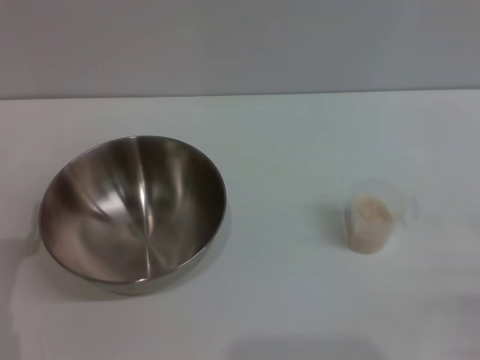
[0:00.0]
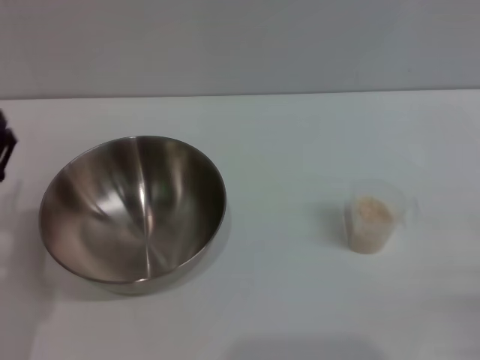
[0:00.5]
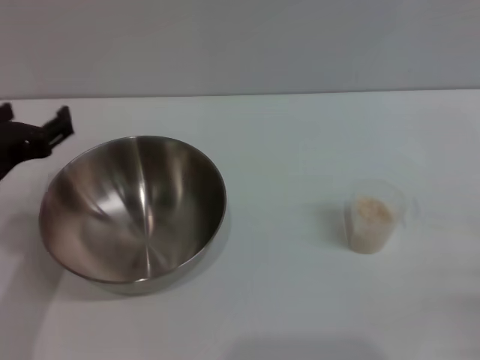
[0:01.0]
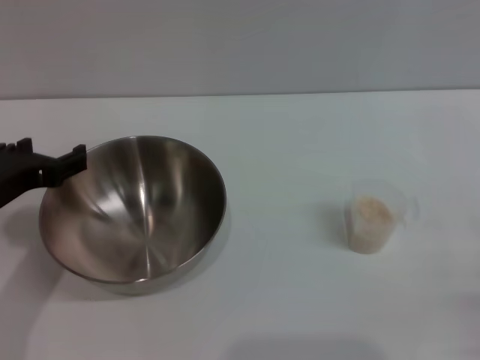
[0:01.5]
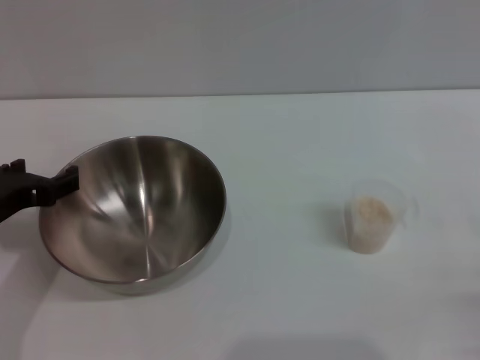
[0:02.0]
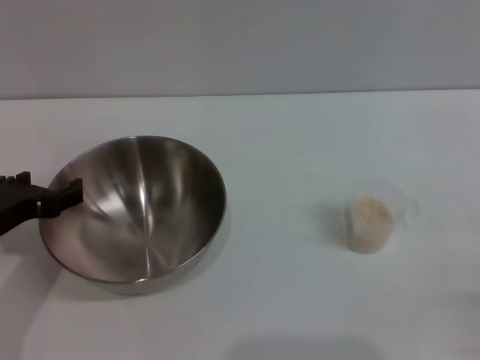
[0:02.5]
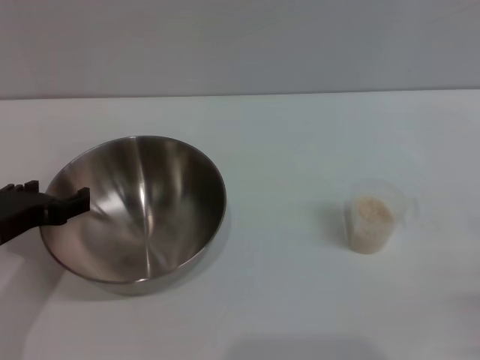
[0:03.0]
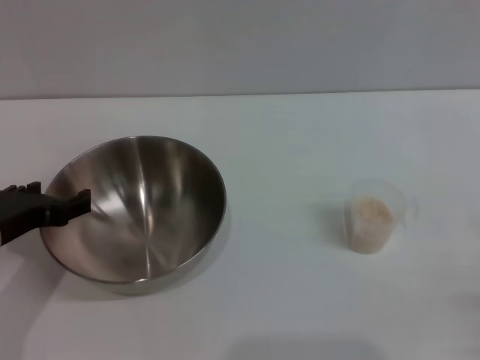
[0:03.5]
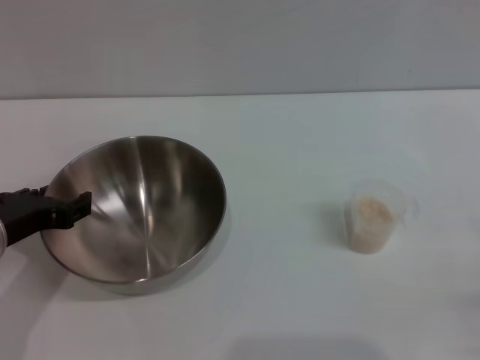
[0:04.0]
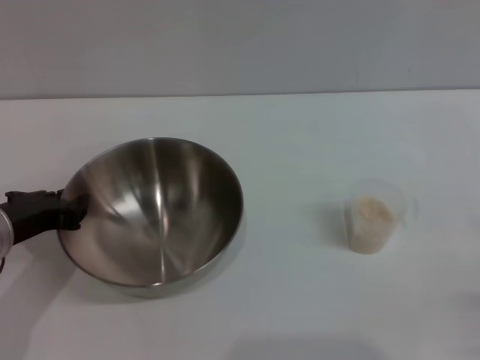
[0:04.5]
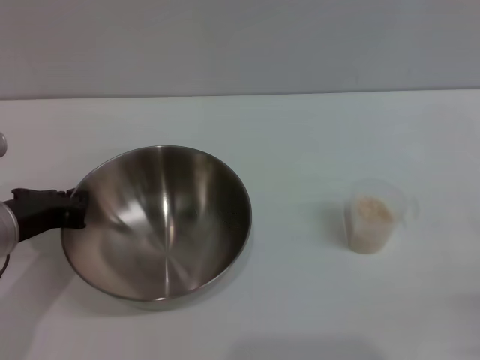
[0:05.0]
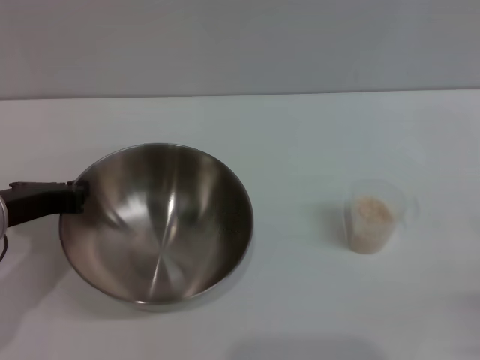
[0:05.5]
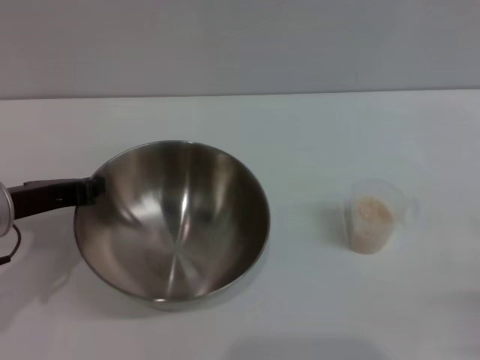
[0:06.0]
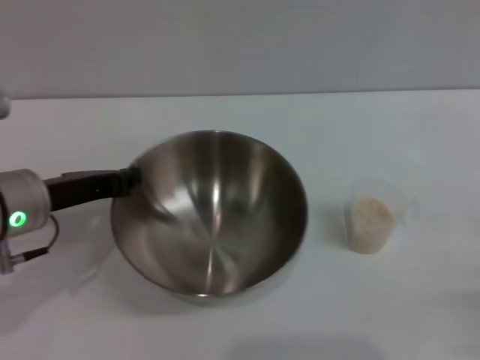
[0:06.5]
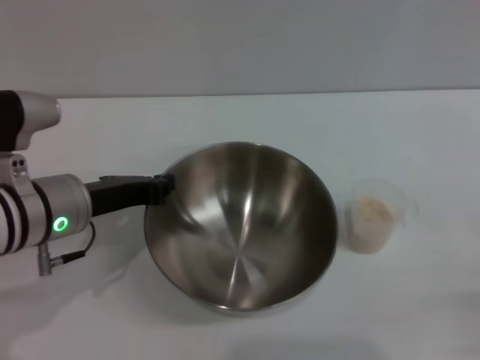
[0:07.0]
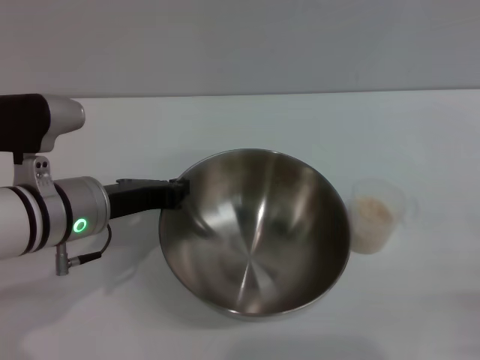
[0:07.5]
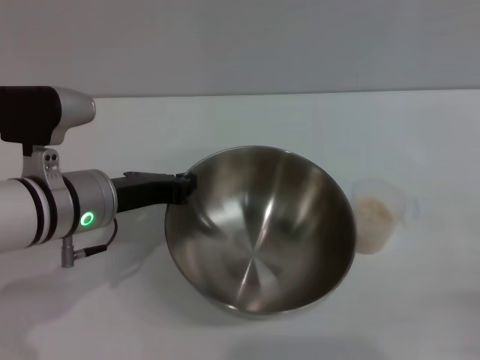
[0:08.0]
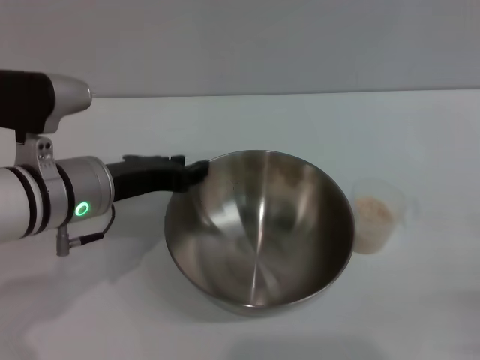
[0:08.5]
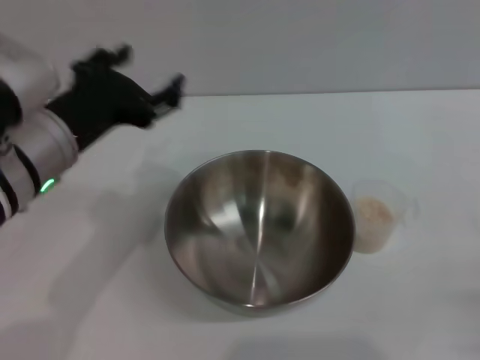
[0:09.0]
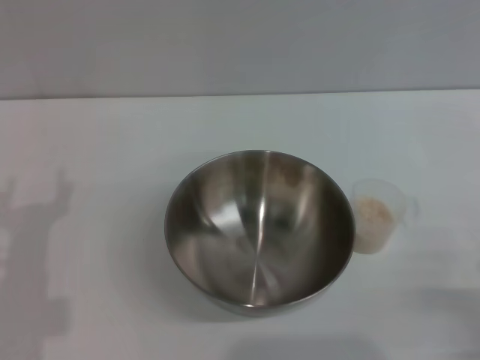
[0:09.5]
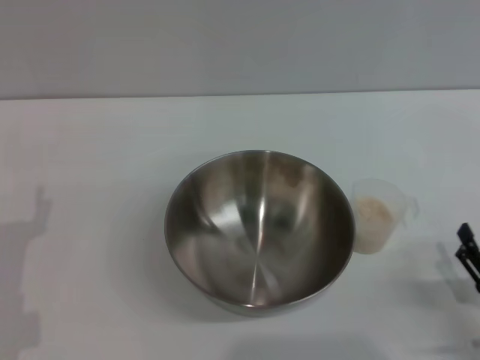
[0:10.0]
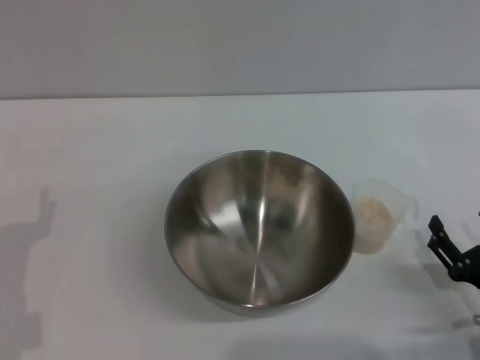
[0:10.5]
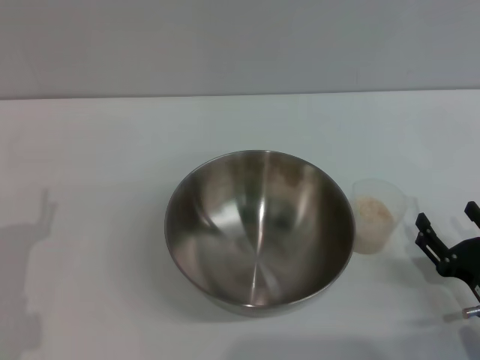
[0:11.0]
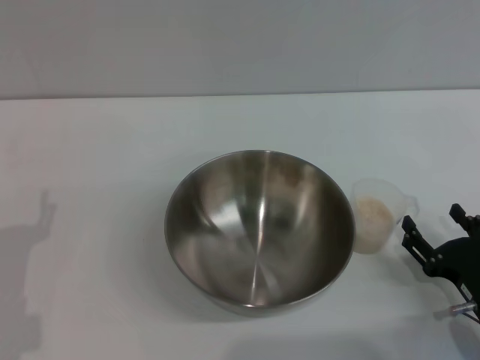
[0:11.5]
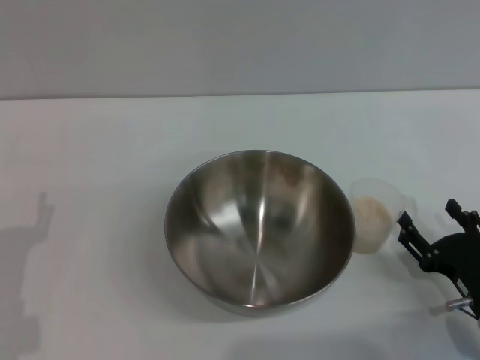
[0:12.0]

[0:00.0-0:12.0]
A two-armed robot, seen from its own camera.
Task of the whole recording: Place the bowl in the middle of the table with one hand and pour the rice from the grain cup into it with the other hand.
Step, 0:00.0 to 0:06.0: Pick up the bowl with the left gripper.
Step, 0:06.5 to 0:08.5: Place the bowl in the center of view with the left gripper.
0:00.0 to 0:02.0: The left gripper is displaced upward and forward by some 10 cm.
0:02.0 to 0:04.0: The grippers move only a little.
0:04.0 to 0:06.0: The left gripper closes.
0:06.0 to 0:08.0: The left gripper moves to the right, about 10 cm.
0:08.0 to 0:10.0: The left gripper travels to the left, backward and downward by about 15 cm, and opens up, while the right gripper shifts by approximately 5 cm.
0:10.0 to 0:12.0: The right gripper travels forward by some 5 cm.

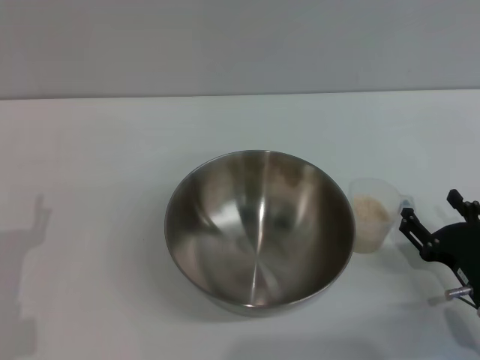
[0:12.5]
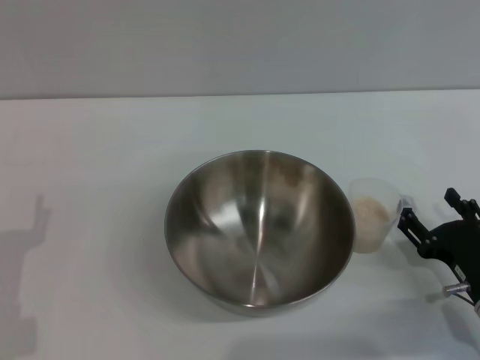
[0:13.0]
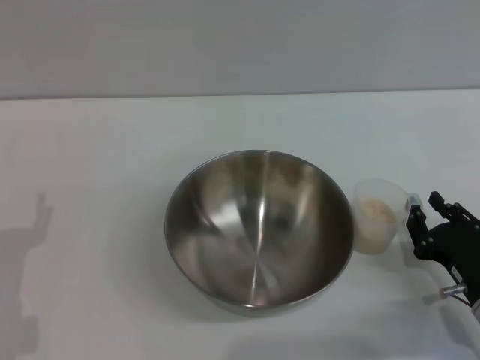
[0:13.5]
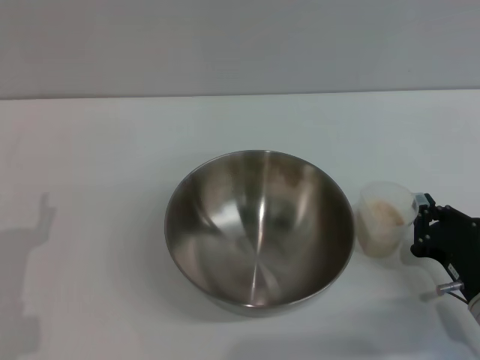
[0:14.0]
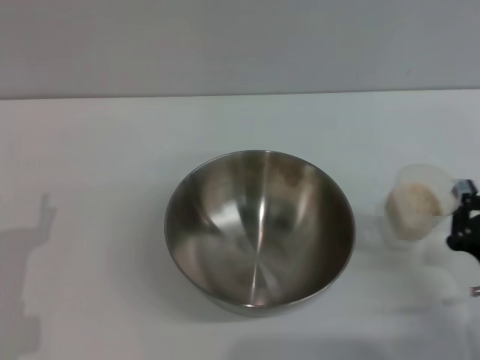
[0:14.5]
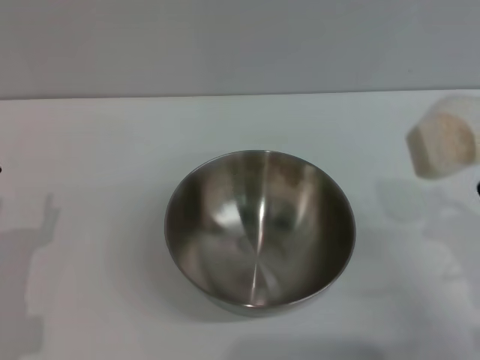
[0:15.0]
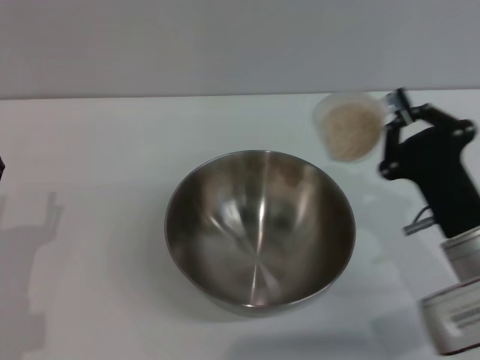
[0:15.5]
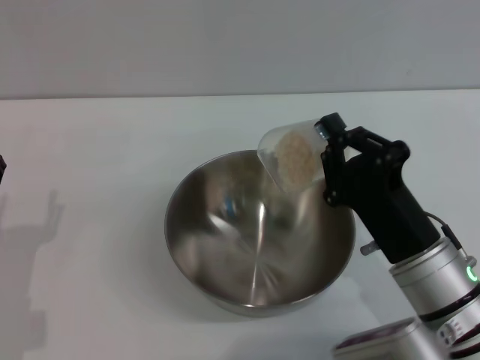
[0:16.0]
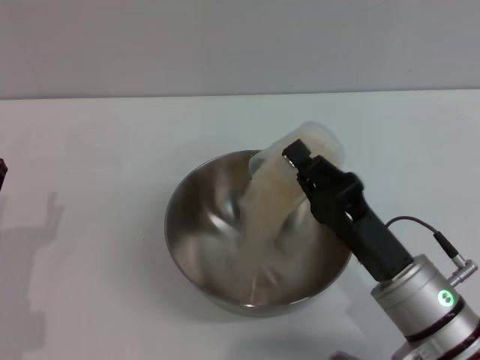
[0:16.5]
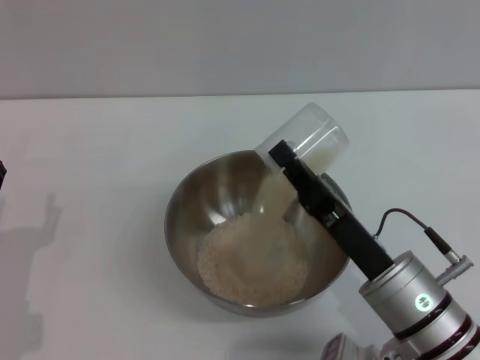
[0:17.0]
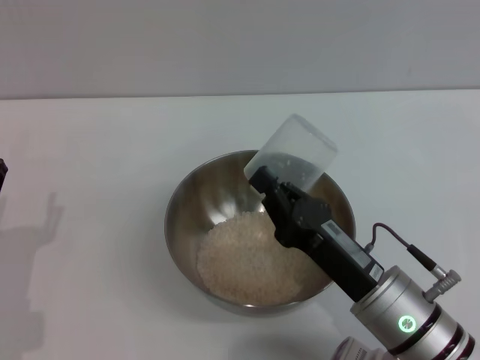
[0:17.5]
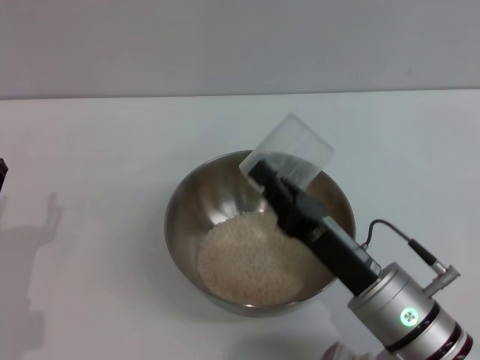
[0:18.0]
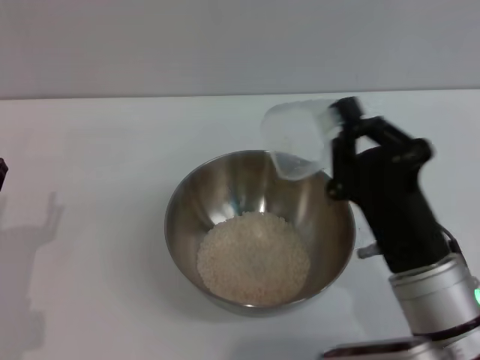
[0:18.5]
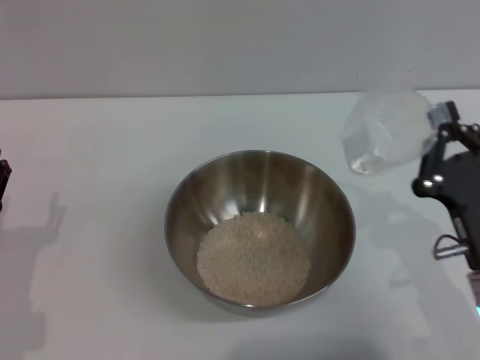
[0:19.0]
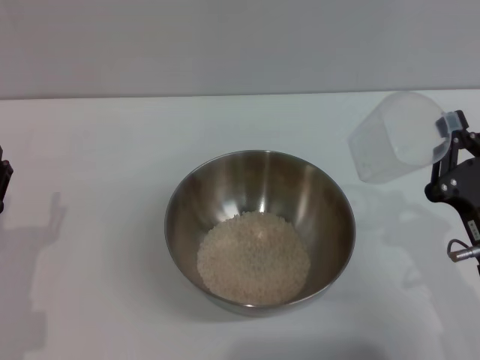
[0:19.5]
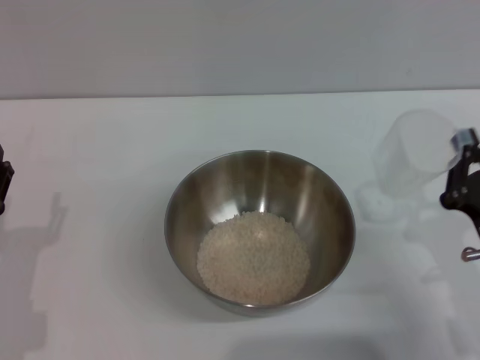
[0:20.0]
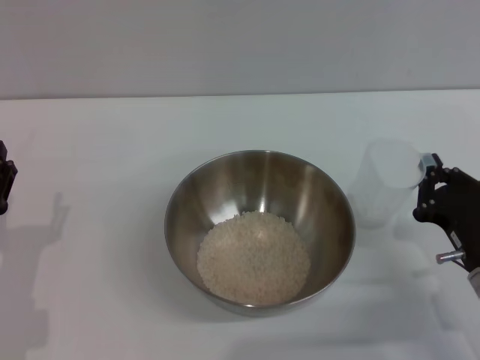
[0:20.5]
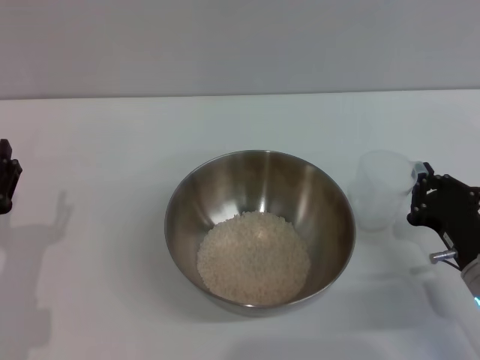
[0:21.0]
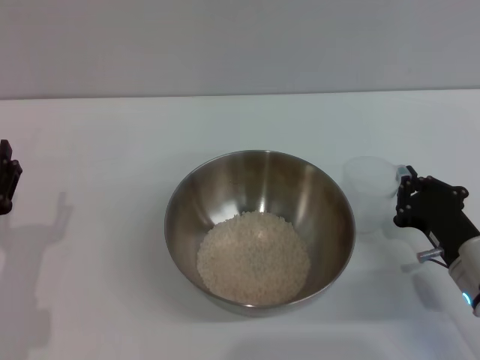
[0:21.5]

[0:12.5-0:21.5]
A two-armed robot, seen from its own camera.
Task of the whole recording: Place the bowl in the middle of the table with one hand and pour the rice from the grain cup into it with the other hand.
Step, 0:12.5 to 0:14.5: Pick up the cup with rice in it with the right gripper.
Step, 0:15.0 to 0:18.0: Pour the rice from the cup into the bowl with the right gripper.
0:12.5 to 0:14.5: The right gripper closes.
0:14.5 to 0:17.0: The right gripper travels to the left by some 15 cm.
0:17.0 to 0:19.5: The right gripper moves to the right, approximately 10 cm.
0:19.5 to 0:21.5: The right gripper changes place by approximately 5 cm.

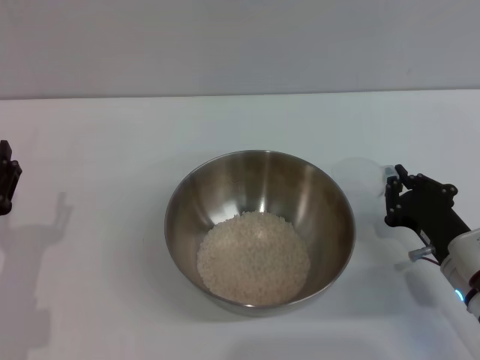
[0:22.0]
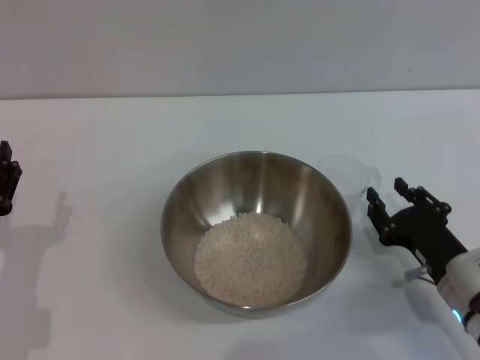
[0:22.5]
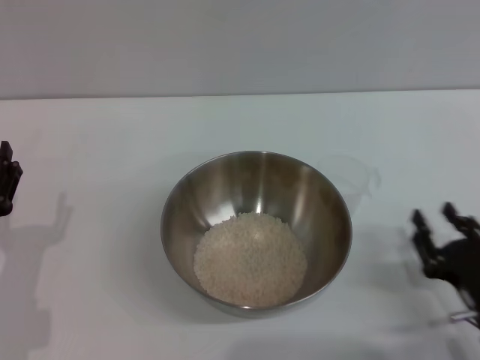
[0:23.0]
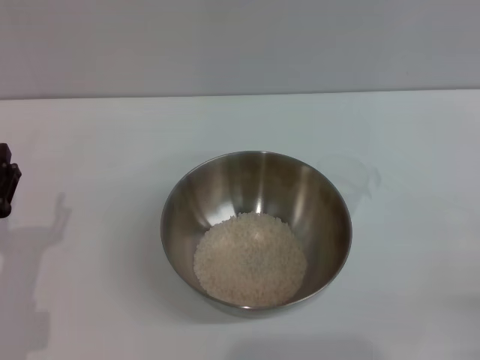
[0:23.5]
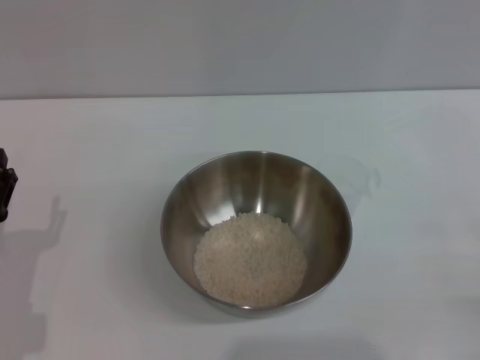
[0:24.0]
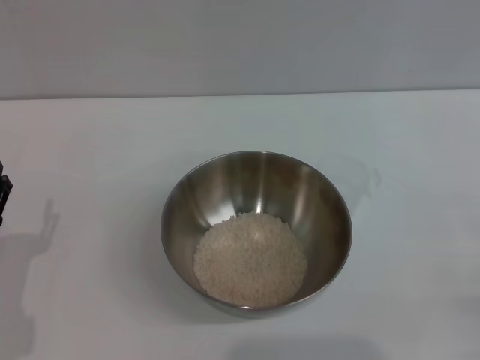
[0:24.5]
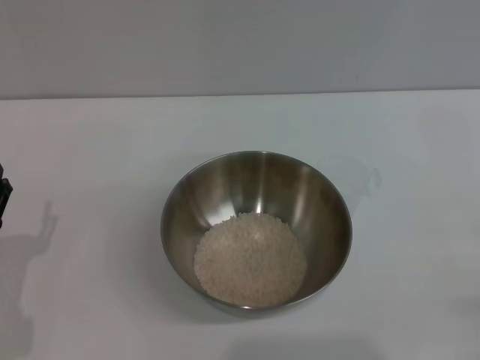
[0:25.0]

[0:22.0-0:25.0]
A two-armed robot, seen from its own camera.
Task of the whole recording: Place the bowl in the middle of the table with one hand and pour the rice from the grain cup into it with the other hand.
0:22.0 to 0:23.5: The right gripper shifts some 15 cm backward and to the right, and opens its fingers.

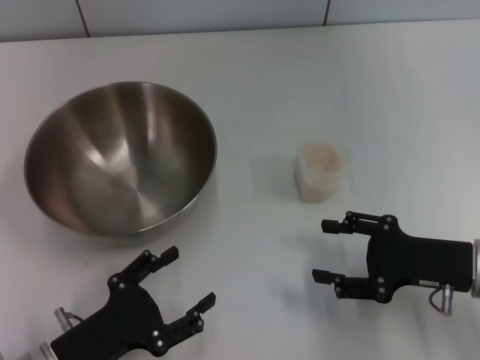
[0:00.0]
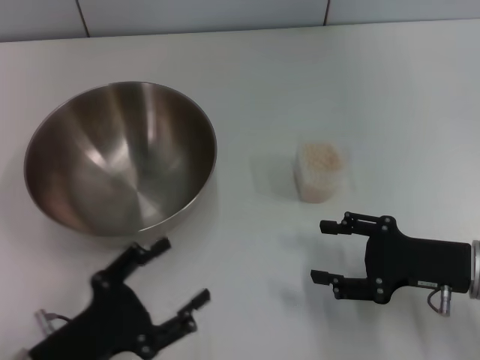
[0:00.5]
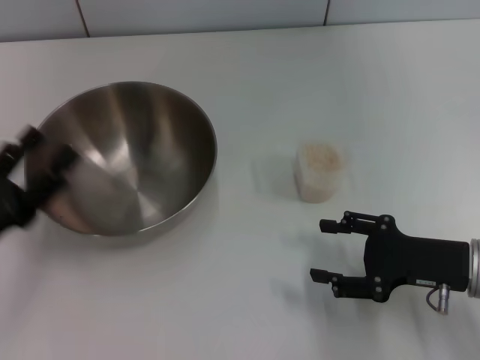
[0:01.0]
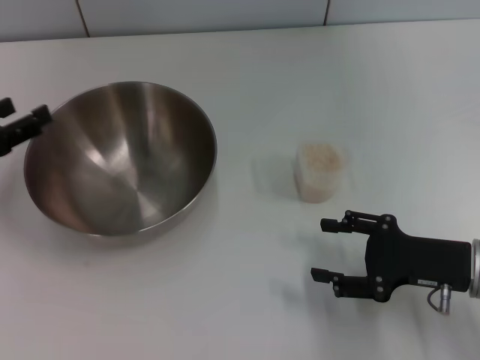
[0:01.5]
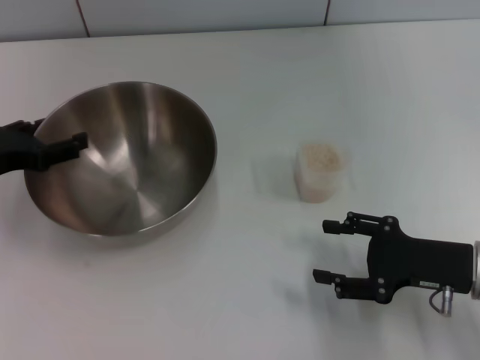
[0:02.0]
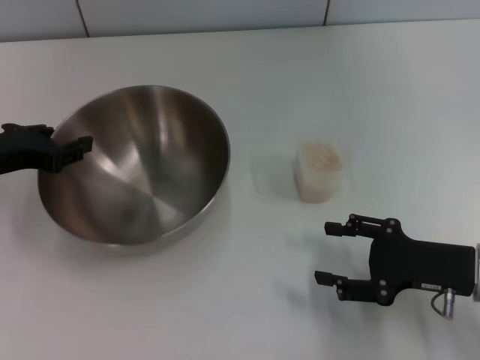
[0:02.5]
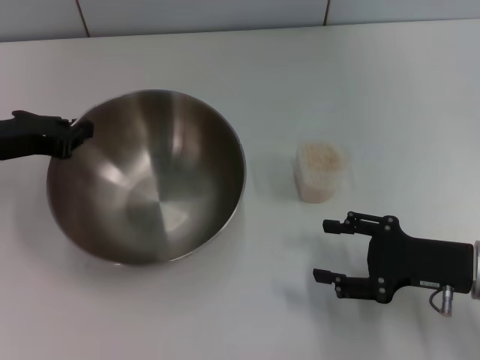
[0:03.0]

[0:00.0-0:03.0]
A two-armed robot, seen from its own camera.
Task of the whole recording: Place the bowl in the middle of the table with one hand and pour the rice from the grain cup into it with the other hand.
Step, 0:00.0 to 0:02.5: Pick up the bowl with the left gripper.
0:00.0 to 0:01.5: The left gripper goes approximately 20 cm forward, to the left and upward.
0:01.5 to 0:03.0: The left gripper shifts some 5 cm to the right, and closes its fingers.
